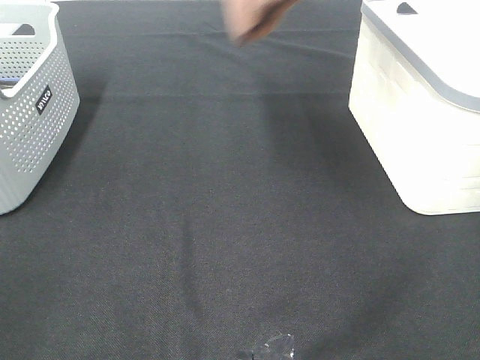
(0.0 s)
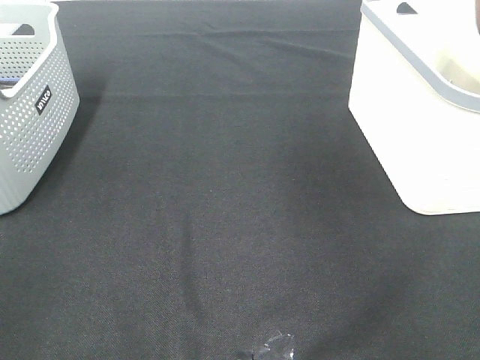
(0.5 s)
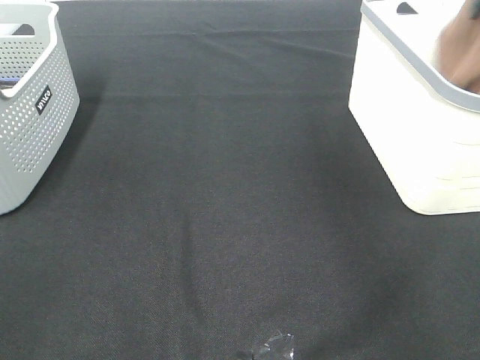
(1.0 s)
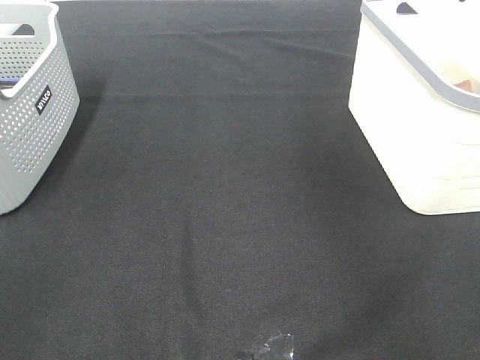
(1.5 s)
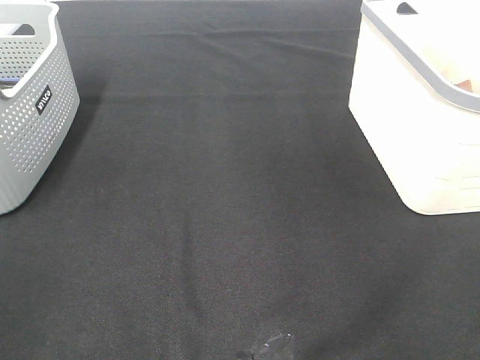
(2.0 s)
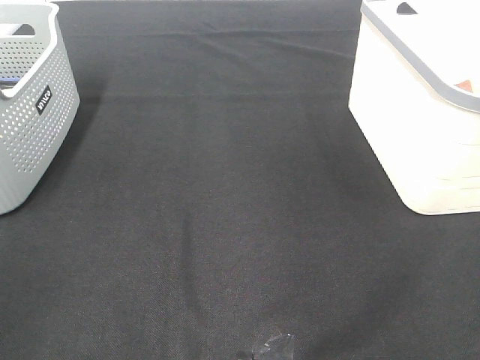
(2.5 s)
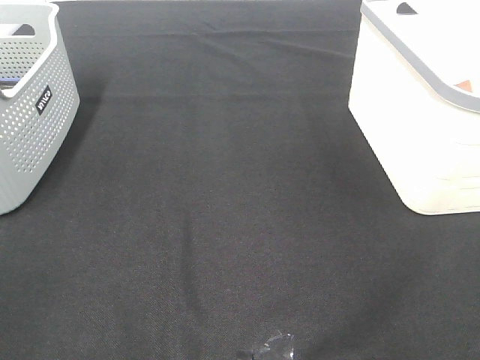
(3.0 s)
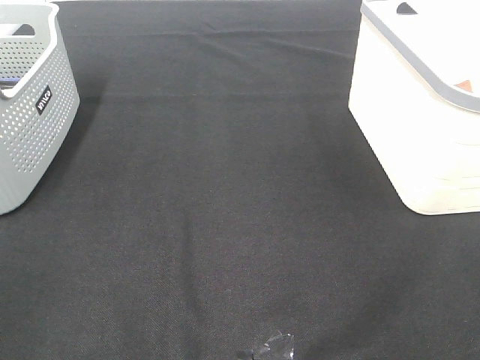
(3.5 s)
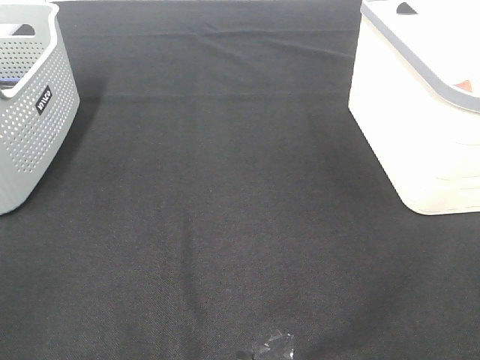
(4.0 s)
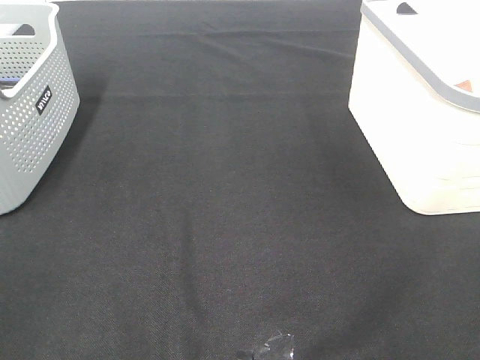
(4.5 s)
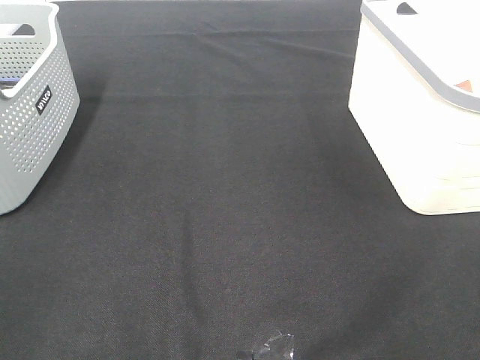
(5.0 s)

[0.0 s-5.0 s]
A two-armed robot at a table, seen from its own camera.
0.0 to 2.5 s: The right gripper travels backward and to the right by some 25 cm, and opens.

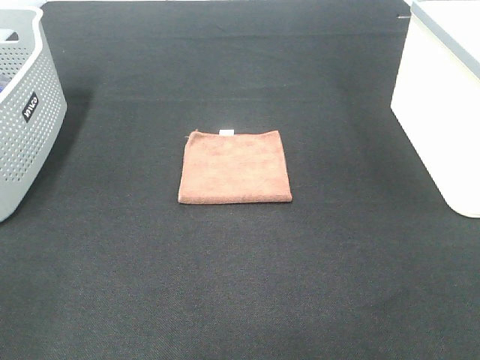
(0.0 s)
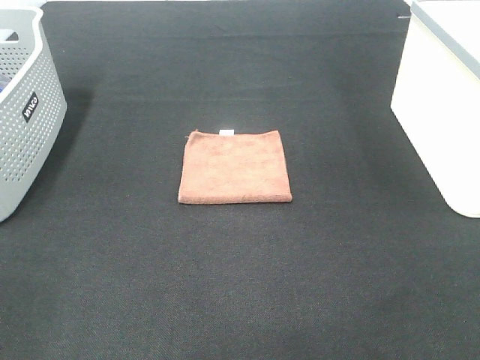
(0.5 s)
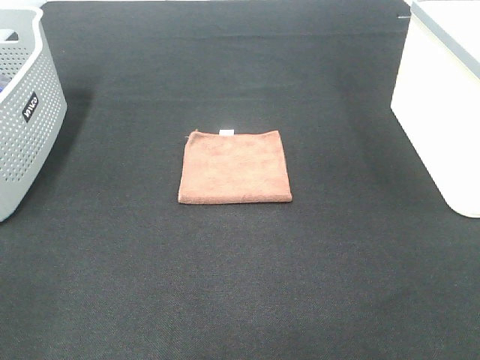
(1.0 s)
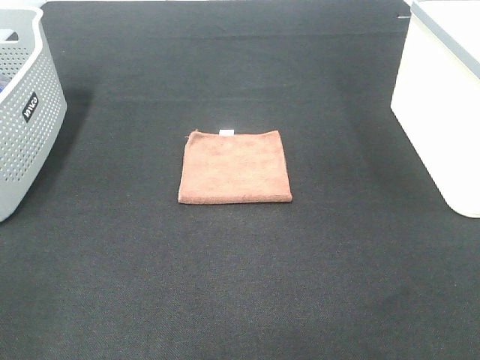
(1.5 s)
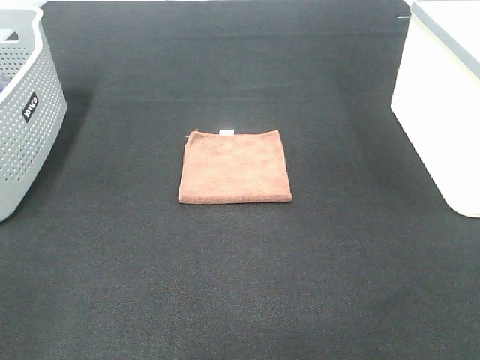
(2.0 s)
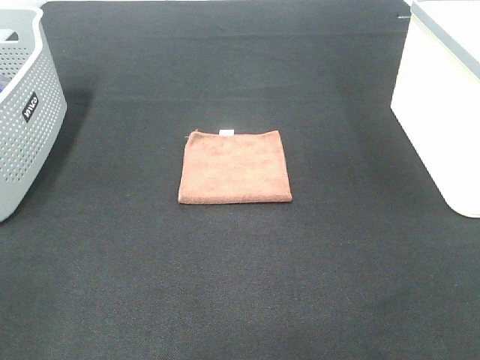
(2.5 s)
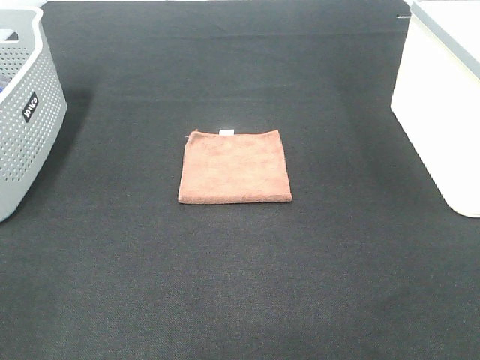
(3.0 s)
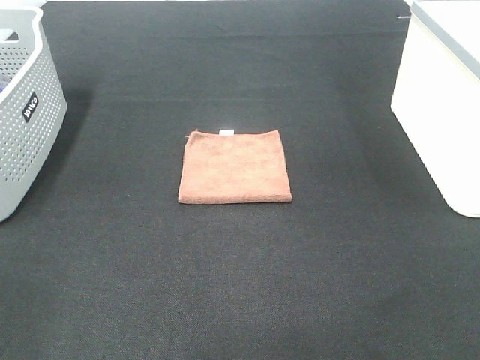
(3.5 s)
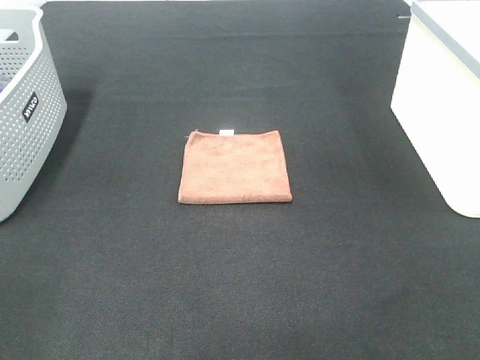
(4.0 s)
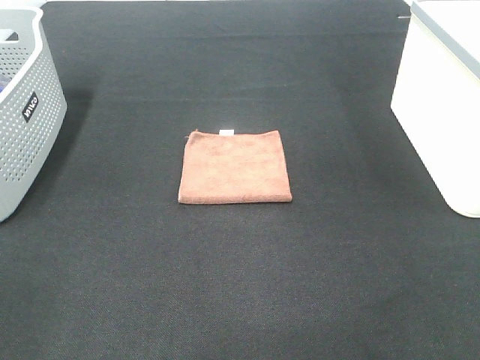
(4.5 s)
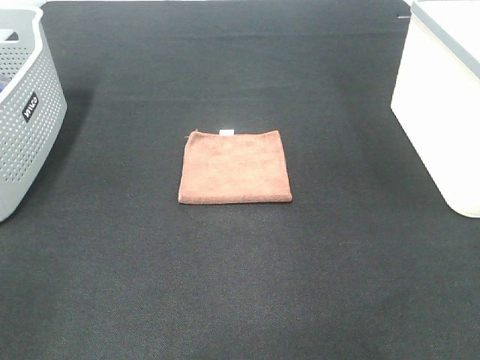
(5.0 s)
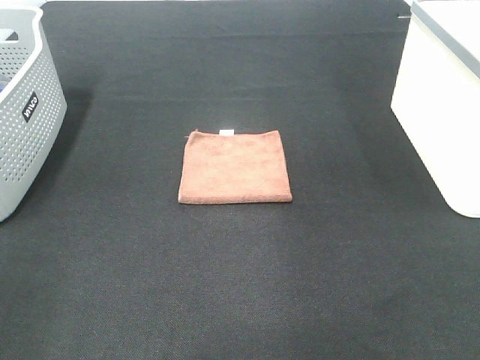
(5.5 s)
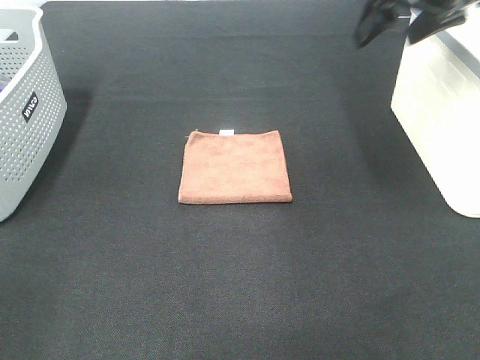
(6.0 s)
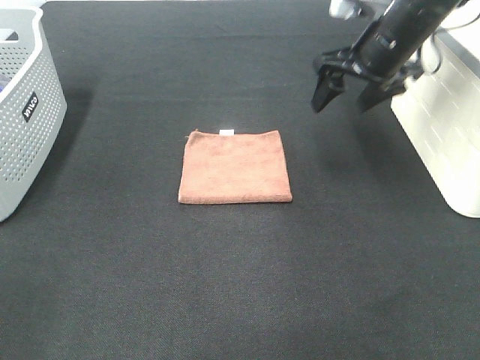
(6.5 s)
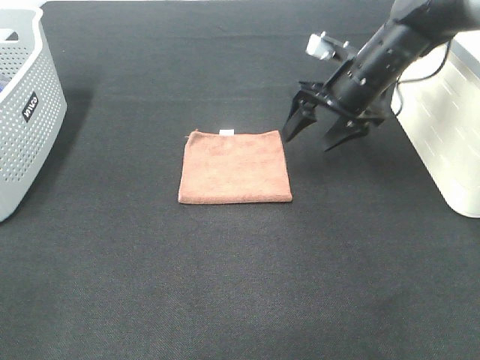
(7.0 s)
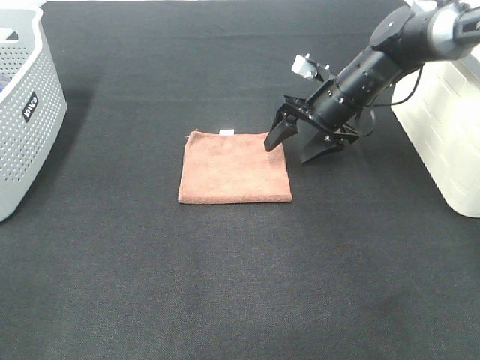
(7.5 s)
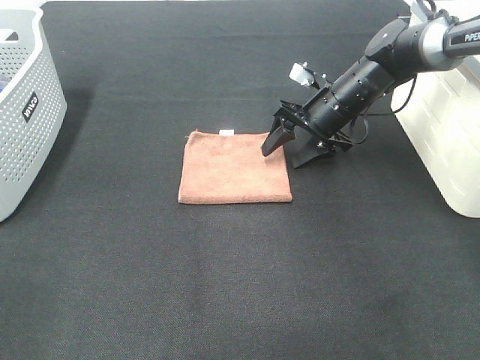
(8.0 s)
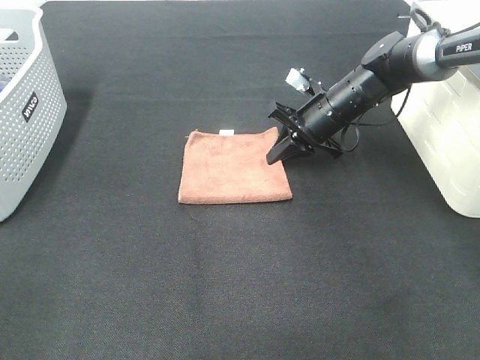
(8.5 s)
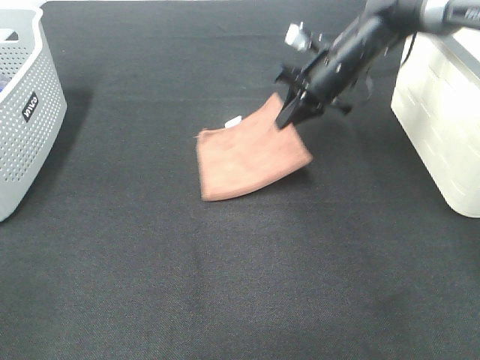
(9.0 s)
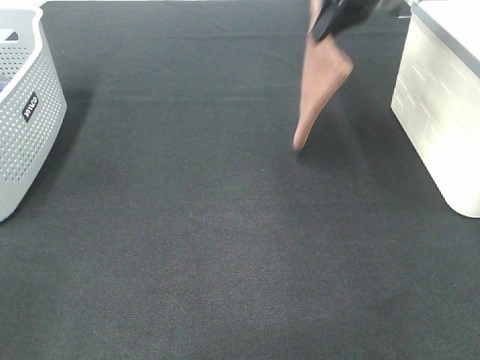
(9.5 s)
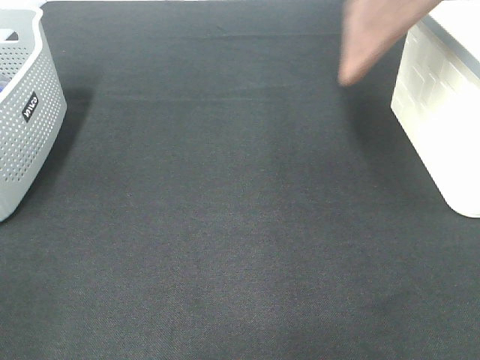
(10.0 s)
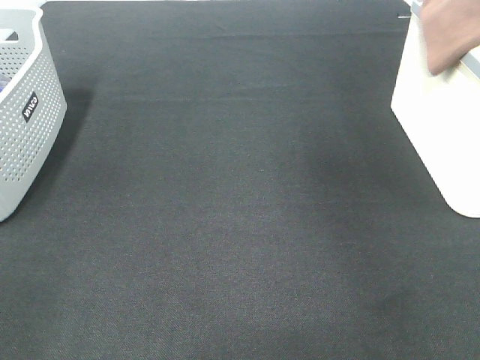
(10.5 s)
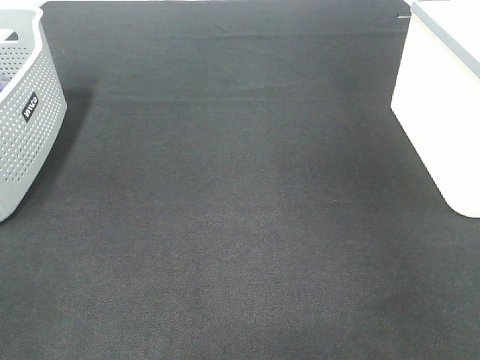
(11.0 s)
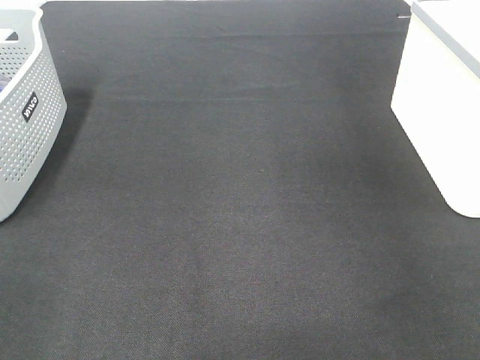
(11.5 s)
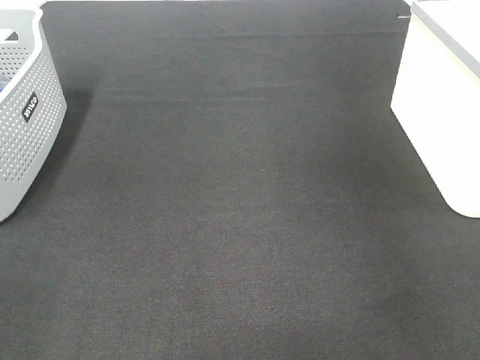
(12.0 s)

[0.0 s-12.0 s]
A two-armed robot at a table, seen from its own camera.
Step, 0.0 to 8.5 s: Right hand: grab the folded brown towel.
Step, 9.0 to 11.5 s: Right hand: place the brown towel in right basket.
0.0 to 4.0 s: Both grippers stay about where they are.
4.0 to 6.0 s: The right gripper is displaced forward by some 40 cm.
6.0 to 8.0 s: The right gripper moves downward, some 20 cm.
8.0 to 10.0 s: The right gripper is displaced upward by approximately 30 cm, and closes.
10.0 to 12.0 s: The right gripper goes some 15 cm to the right, and opens its fingers.

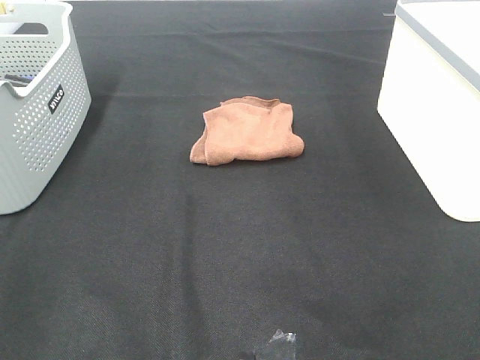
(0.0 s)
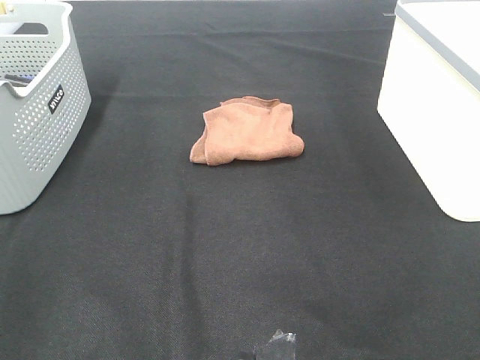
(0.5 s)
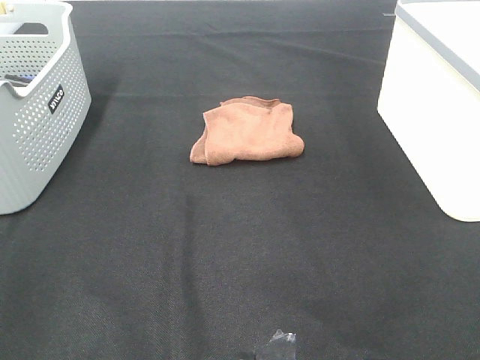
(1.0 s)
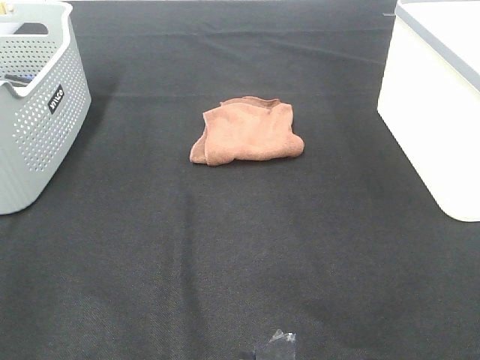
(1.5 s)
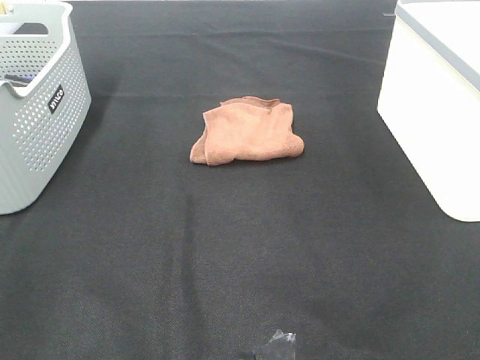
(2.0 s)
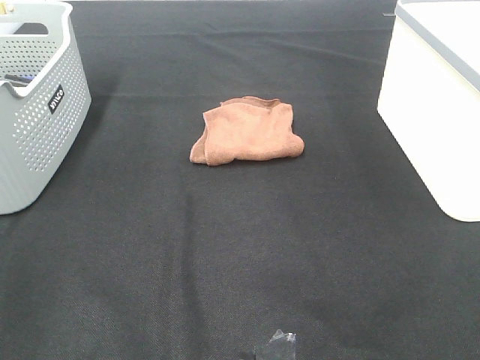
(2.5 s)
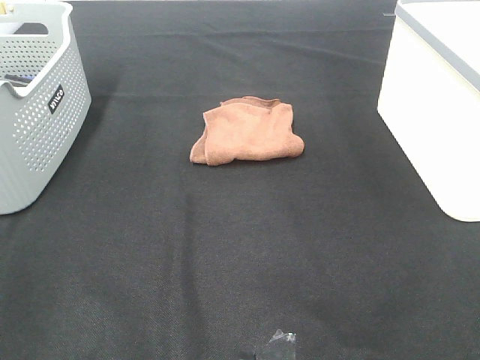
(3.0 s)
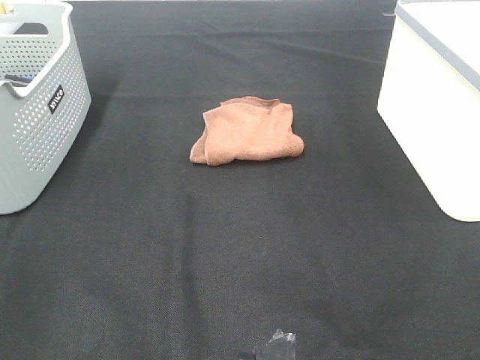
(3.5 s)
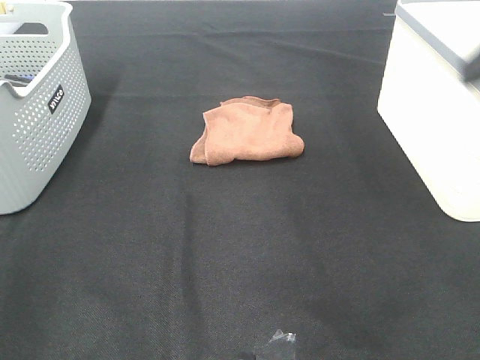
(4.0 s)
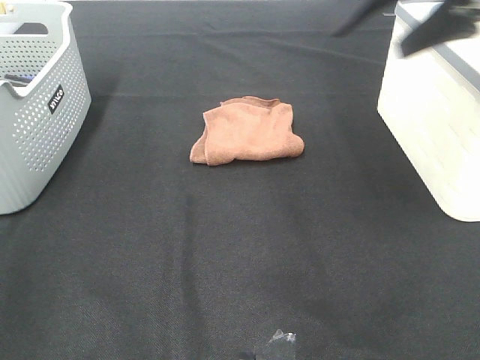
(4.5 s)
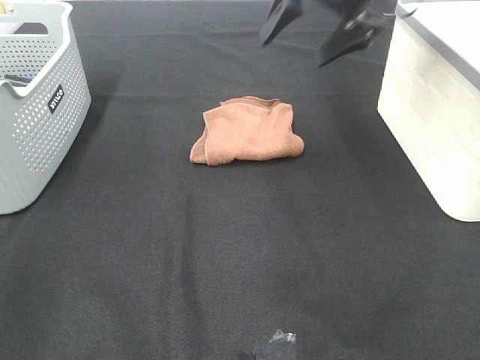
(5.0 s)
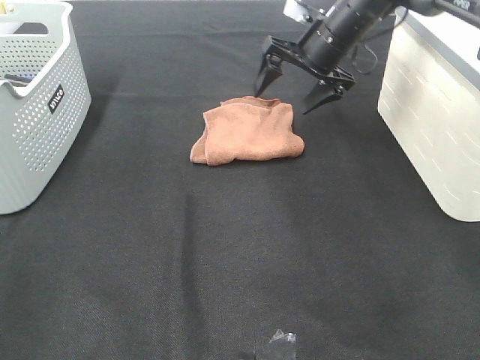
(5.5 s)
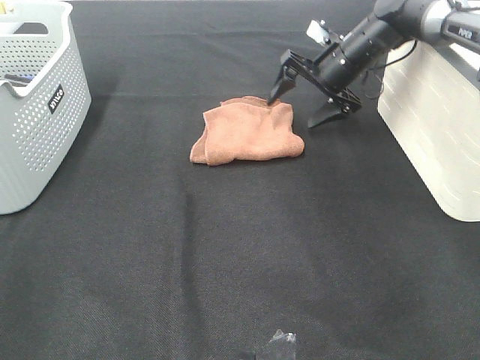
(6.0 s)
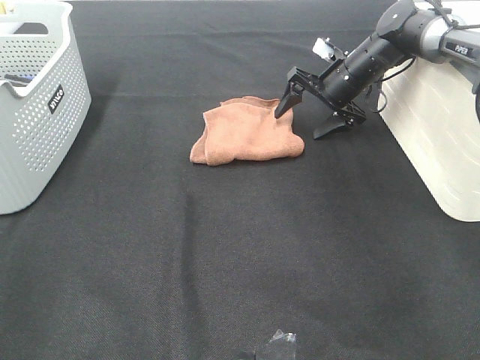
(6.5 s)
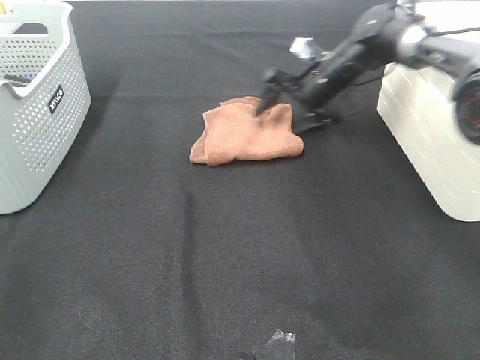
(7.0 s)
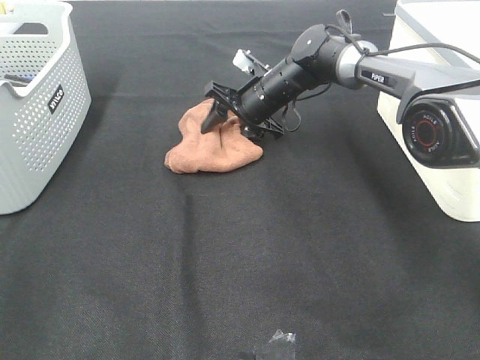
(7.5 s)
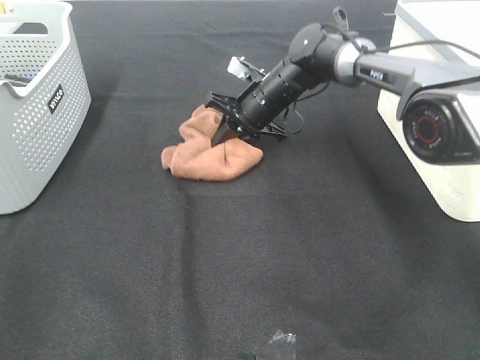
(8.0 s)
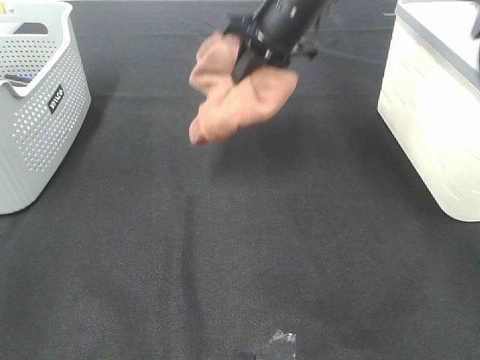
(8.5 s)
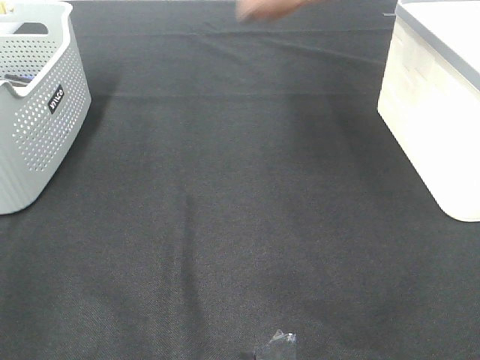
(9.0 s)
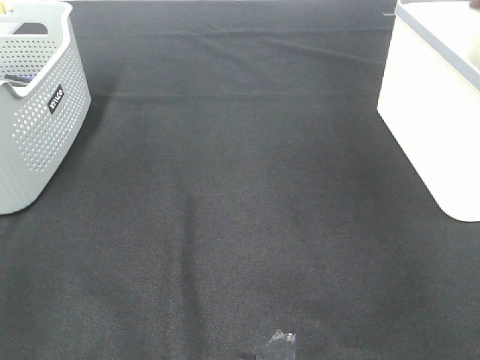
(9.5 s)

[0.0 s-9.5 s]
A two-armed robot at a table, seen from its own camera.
Step, 0.0 to 7.5 s: Right hand: grab the folded brown towel.
0.0 to 2.0 s: Both grippers stay about where they are.
4.0 to 5.5 s: The right gripper moves forward, downward and to the left, roughly 35 cm.
5.5 to 7.5 s: The right gripper is displaced downward and to the left by approximately 15 cm, and closes its fingers.
7.5 to 9.5 s: The right gripper is displaced to the right and upward by some 50 cm, and closes up.
